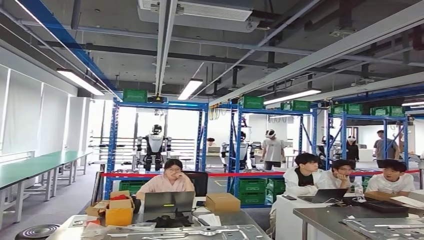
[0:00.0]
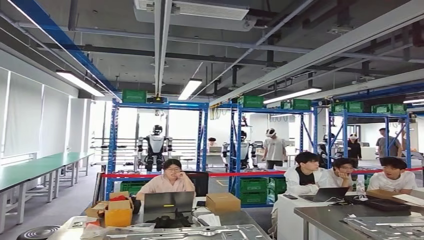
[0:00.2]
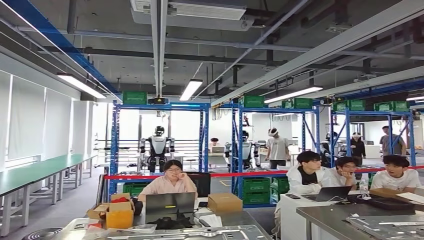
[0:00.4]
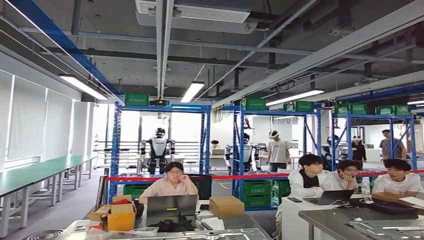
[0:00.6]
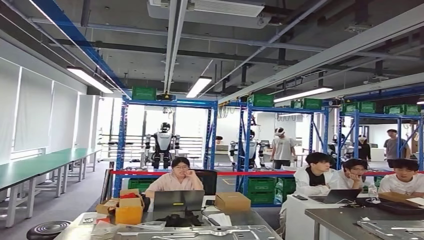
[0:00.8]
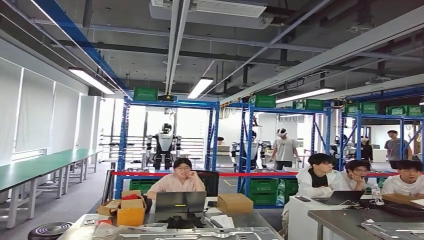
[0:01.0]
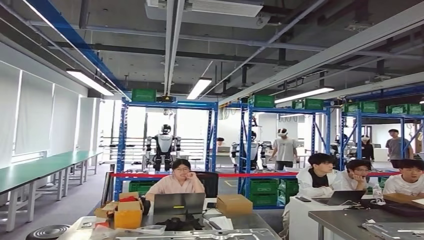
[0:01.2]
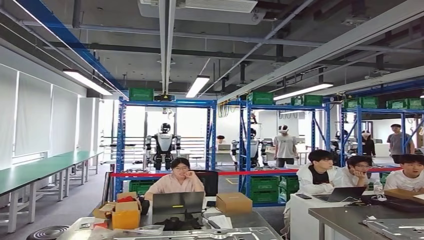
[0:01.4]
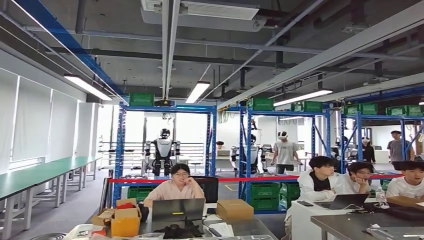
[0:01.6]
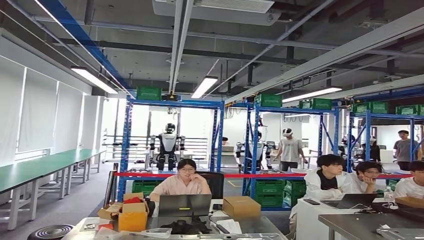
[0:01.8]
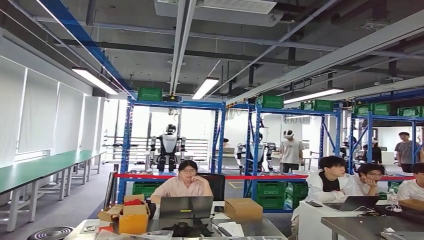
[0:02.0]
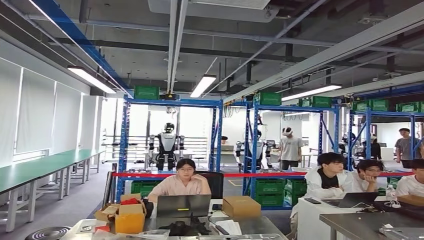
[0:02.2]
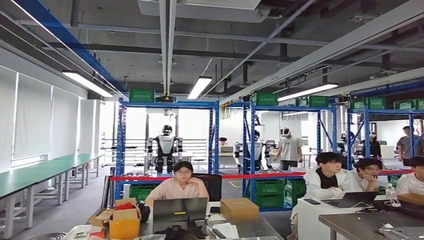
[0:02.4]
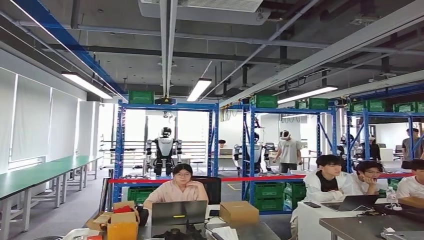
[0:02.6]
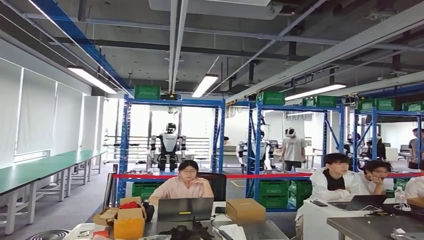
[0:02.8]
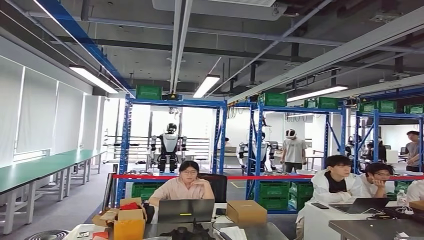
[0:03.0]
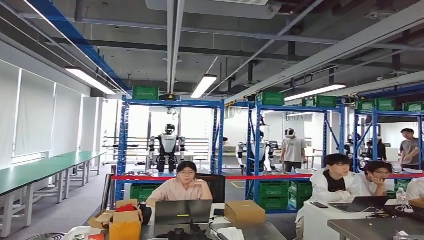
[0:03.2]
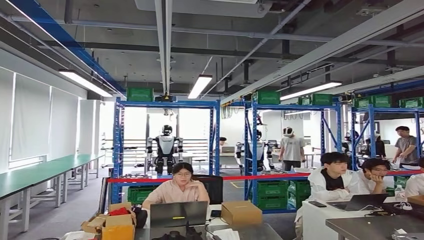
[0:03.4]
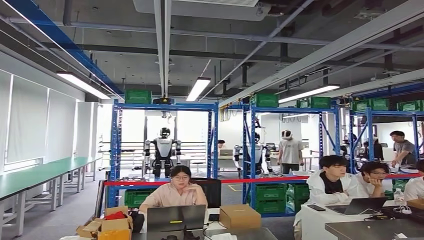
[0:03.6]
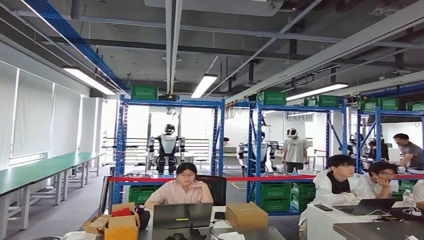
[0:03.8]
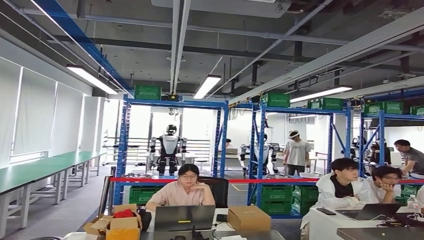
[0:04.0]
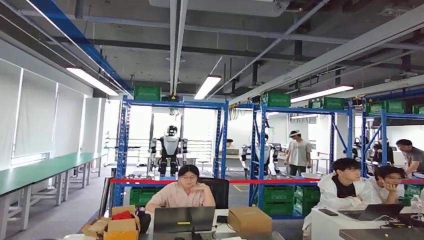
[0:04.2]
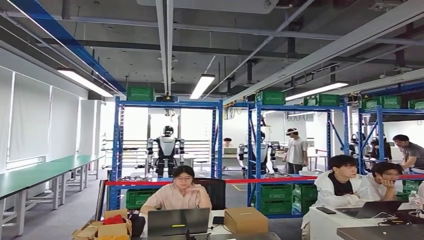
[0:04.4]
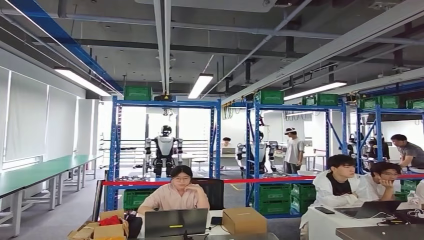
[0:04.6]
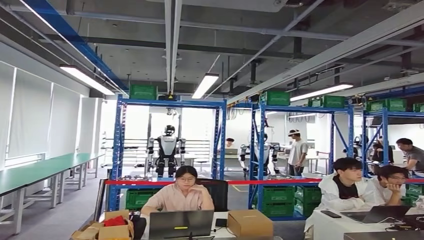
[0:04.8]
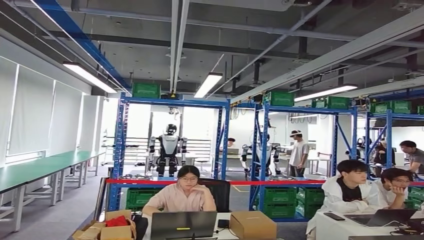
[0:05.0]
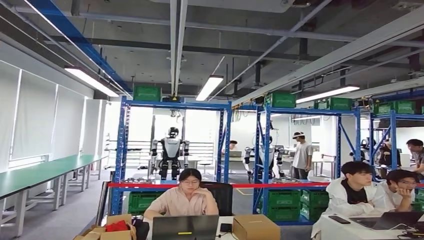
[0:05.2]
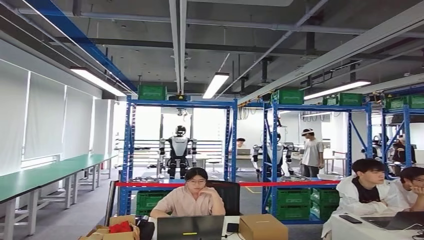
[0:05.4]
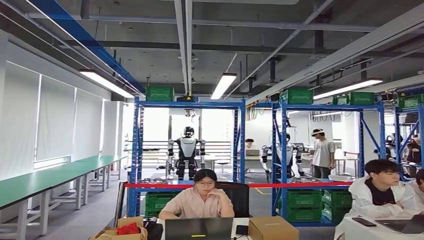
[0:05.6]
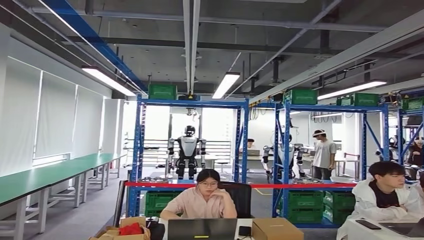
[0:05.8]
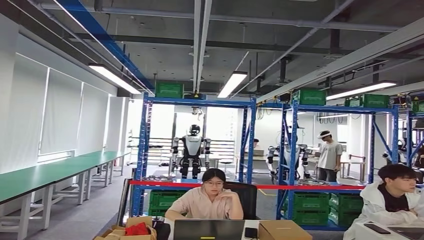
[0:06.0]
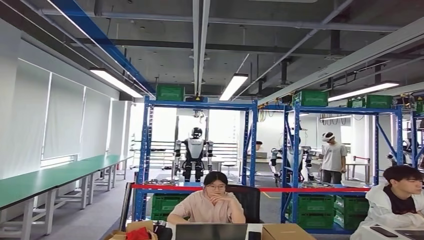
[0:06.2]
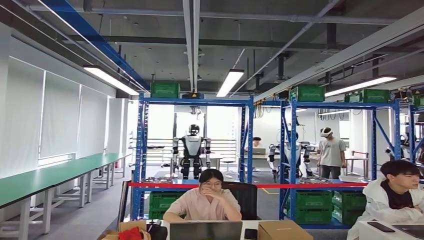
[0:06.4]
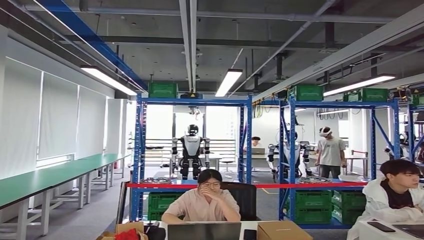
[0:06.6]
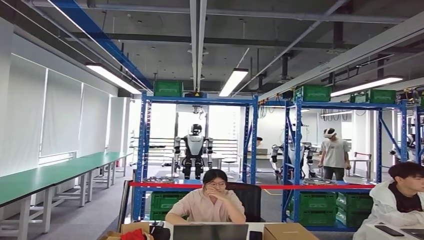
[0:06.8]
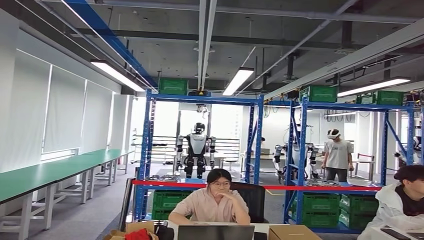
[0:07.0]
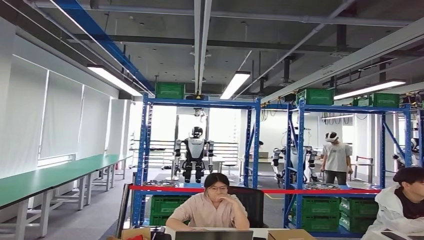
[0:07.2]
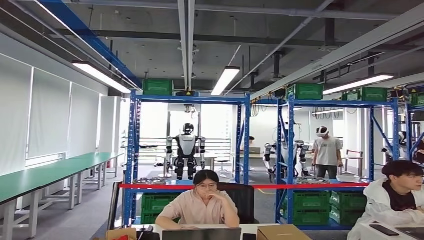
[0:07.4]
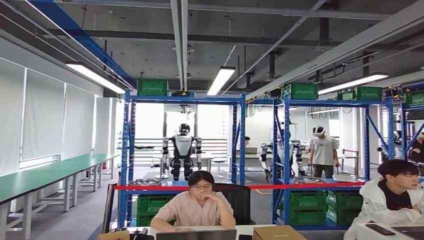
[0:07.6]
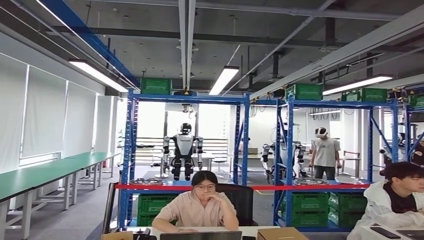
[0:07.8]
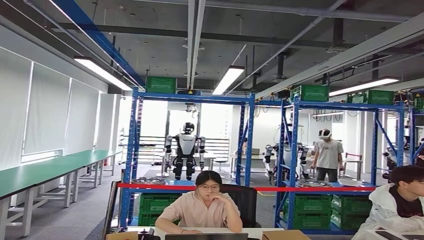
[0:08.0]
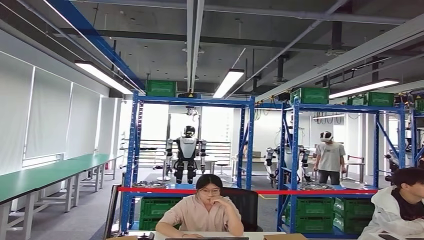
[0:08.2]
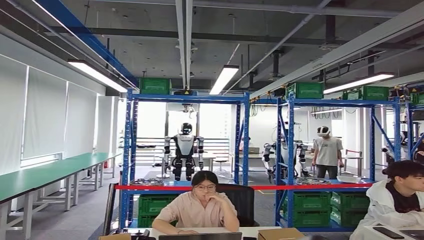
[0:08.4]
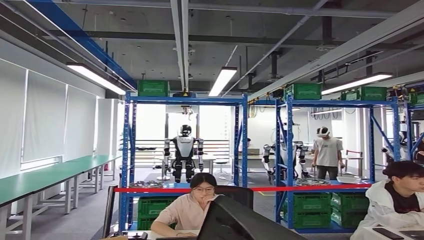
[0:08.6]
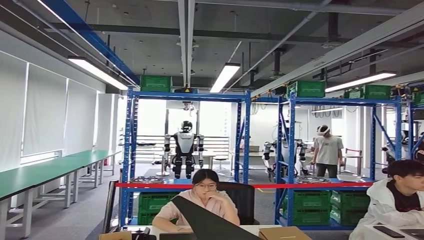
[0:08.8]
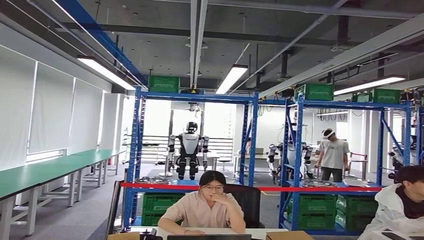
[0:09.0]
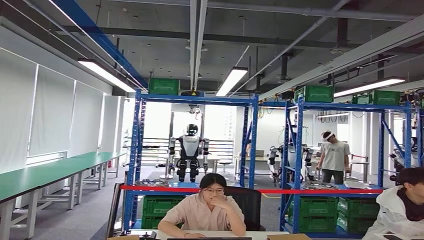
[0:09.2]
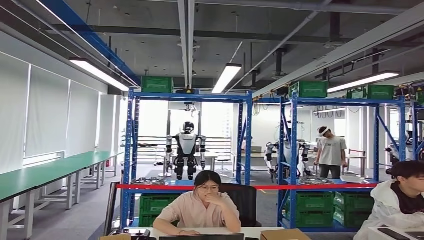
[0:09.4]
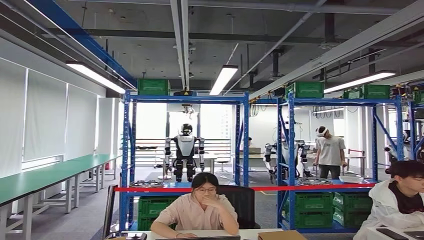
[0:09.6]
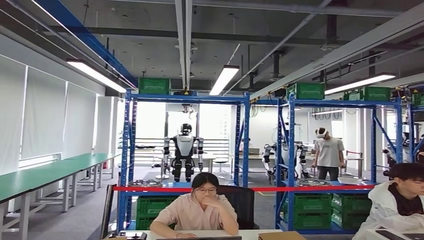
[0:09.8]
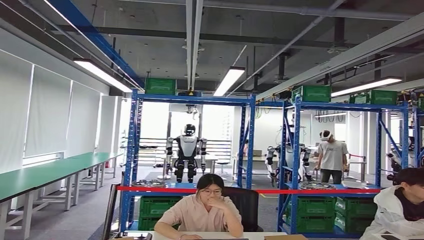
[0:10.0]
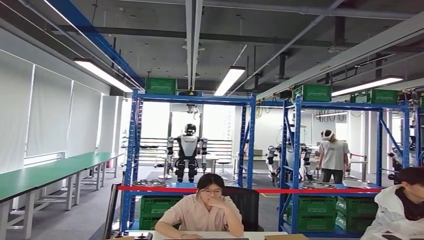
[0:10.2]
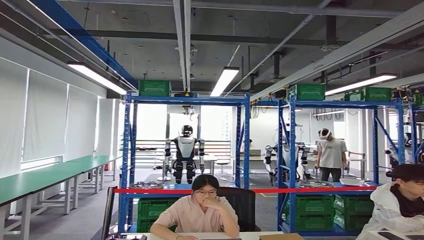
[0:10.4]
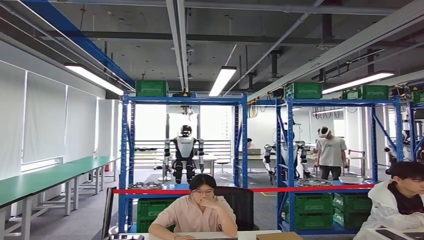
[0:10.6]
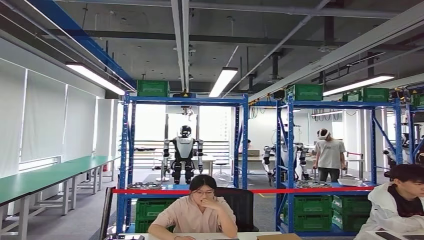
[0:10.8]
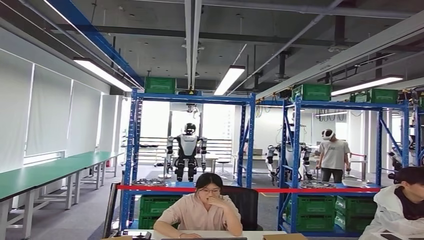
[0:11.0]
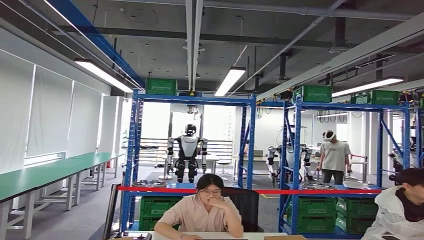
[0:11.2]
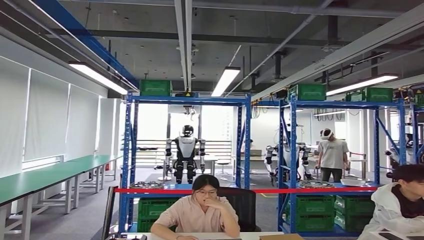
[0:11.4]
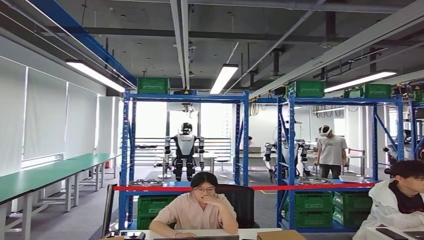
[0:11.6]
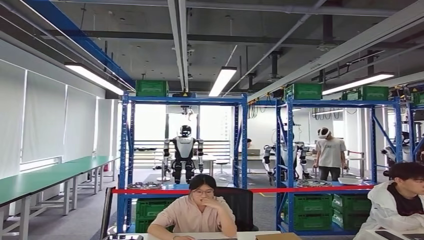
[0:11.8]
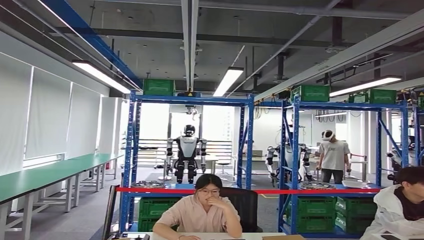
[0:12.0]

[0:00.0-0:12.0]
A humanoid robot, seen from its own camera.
Step, 0:00.0 to 0:09.4: Move the small parts to the workbench.

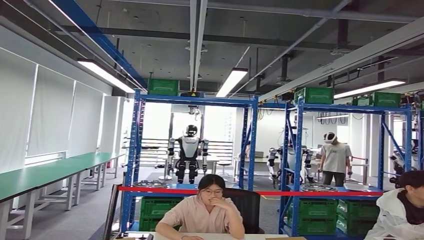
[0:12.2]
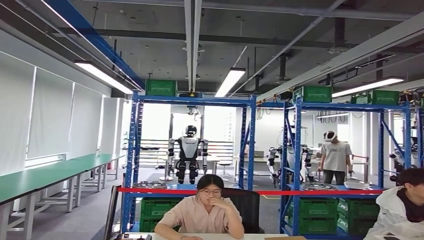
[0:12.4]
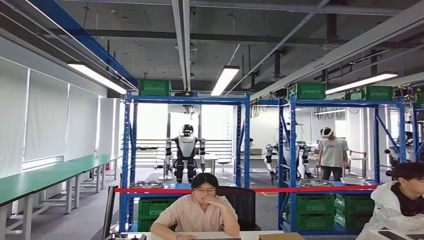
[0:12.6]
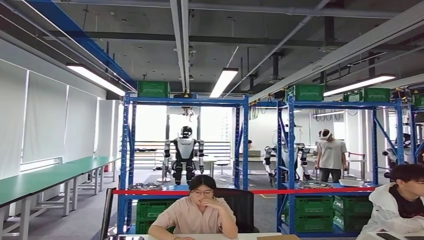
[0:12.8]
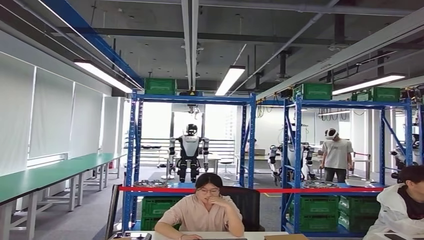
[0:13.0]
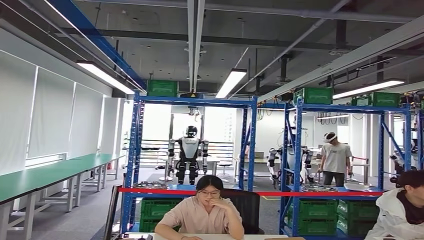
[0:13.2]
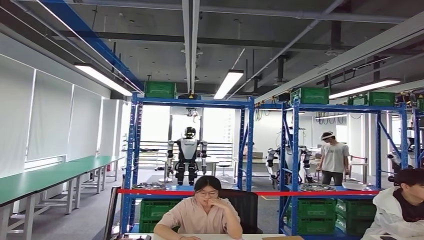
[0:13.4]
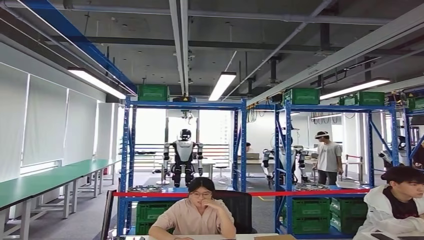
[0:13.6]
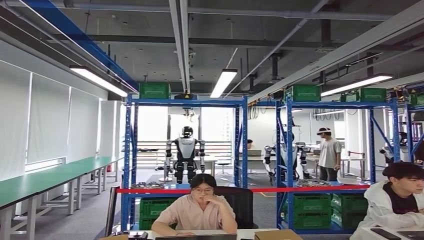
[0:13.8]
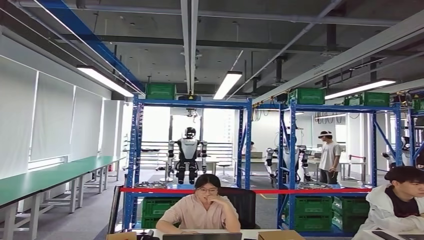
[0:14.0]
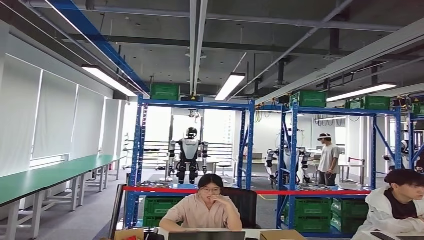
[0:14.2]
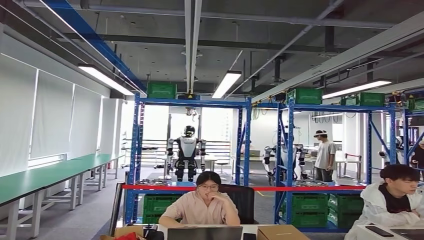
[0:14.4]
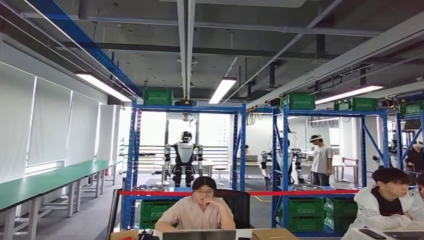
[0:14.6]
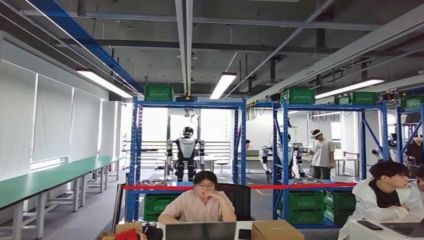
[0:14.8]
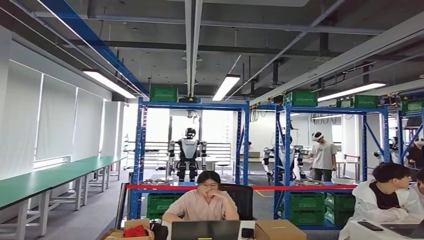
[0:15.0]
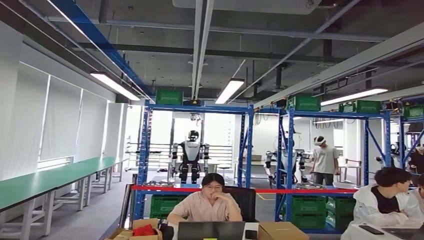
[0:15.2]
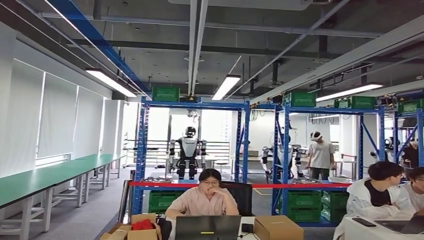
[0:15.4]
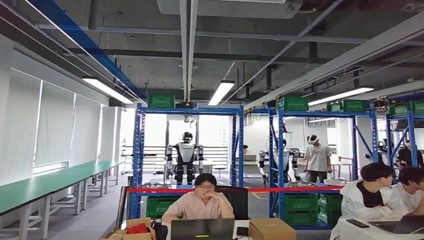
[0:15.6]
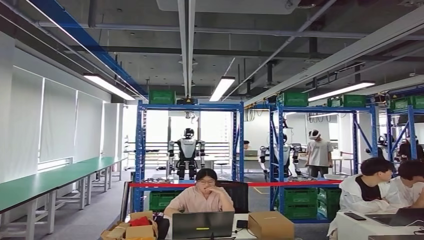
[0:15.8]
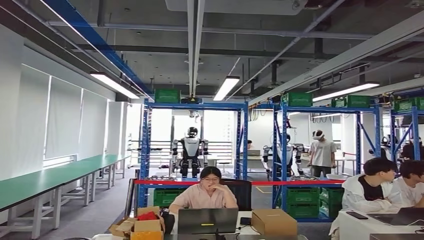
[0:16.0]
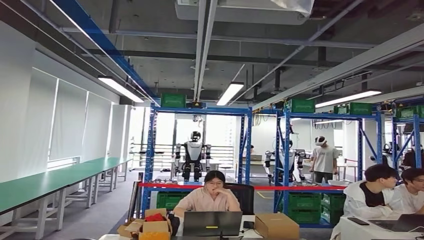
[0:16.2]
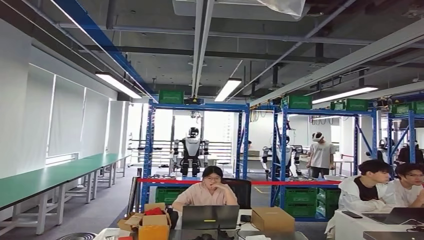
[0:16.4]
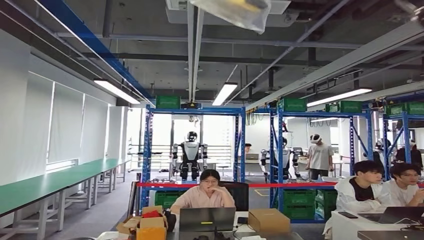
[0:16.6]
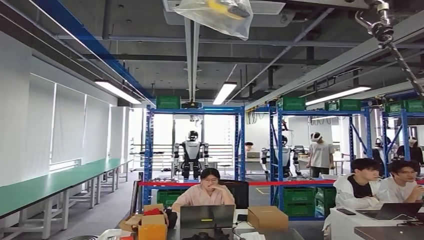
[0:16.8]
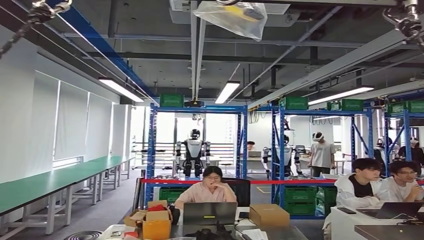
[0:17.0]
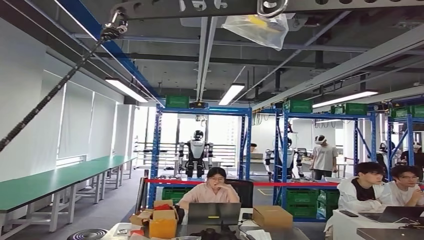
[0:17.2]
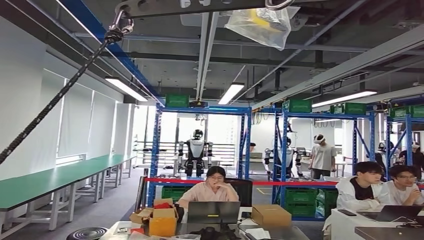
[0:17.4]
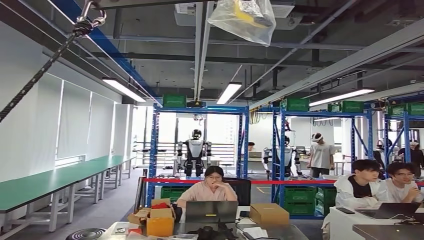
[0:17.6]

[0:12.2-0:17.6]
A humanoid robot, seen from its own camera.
Step, 0:13.0 to 0:17.6: Move to the initial position of the workbench.
